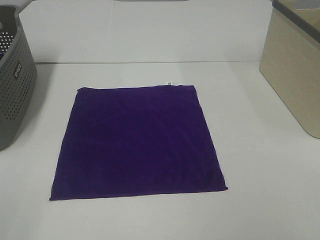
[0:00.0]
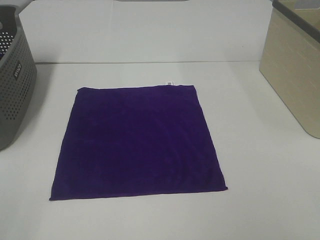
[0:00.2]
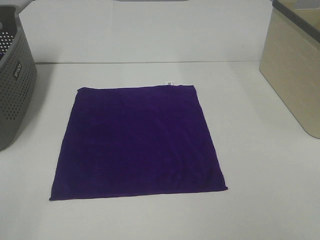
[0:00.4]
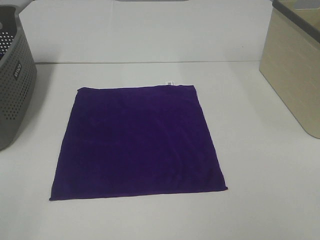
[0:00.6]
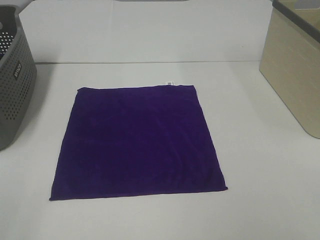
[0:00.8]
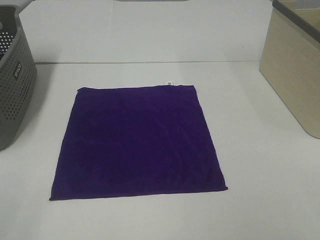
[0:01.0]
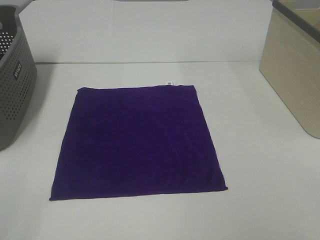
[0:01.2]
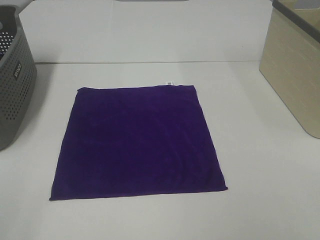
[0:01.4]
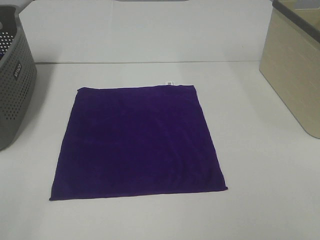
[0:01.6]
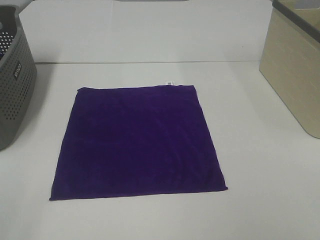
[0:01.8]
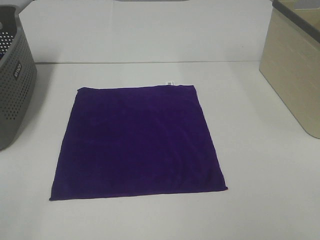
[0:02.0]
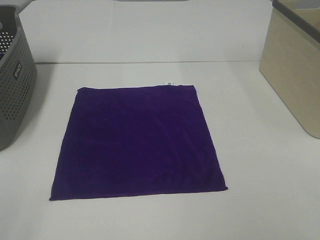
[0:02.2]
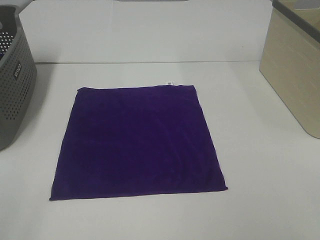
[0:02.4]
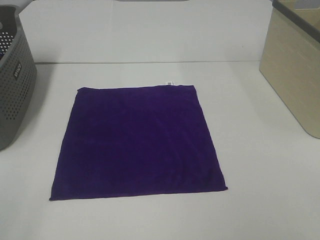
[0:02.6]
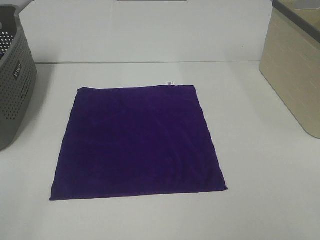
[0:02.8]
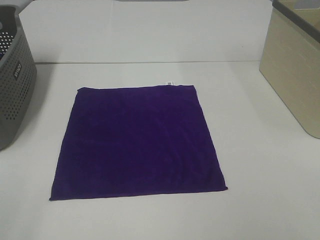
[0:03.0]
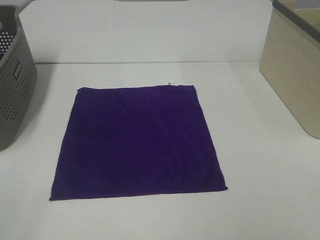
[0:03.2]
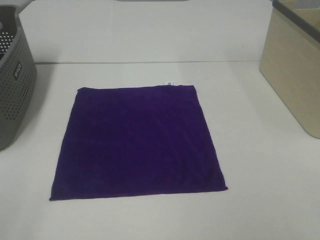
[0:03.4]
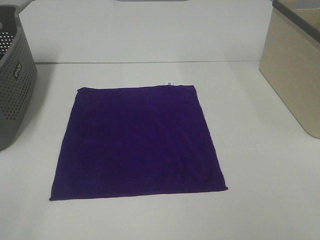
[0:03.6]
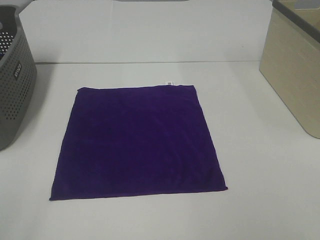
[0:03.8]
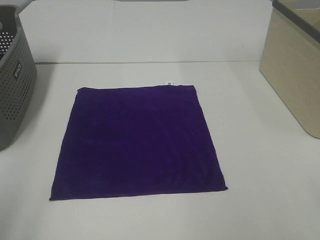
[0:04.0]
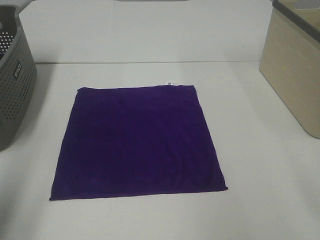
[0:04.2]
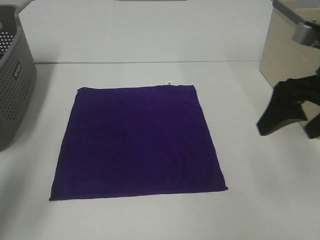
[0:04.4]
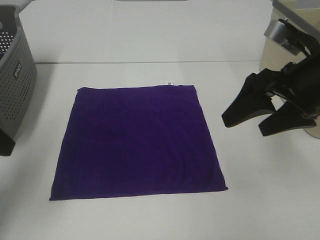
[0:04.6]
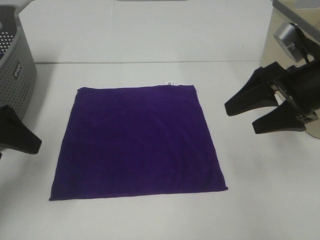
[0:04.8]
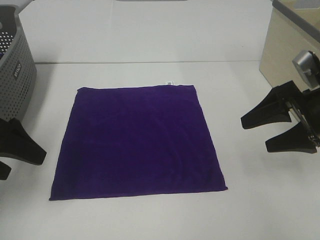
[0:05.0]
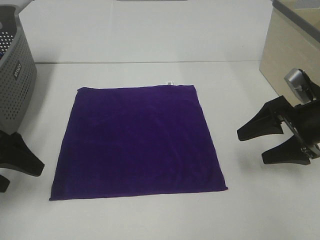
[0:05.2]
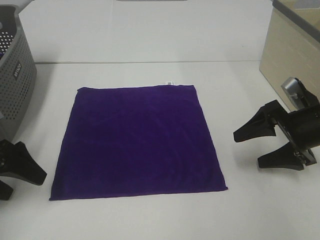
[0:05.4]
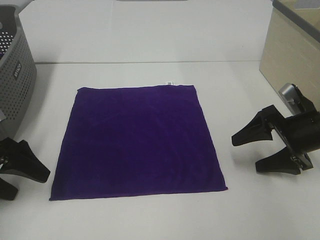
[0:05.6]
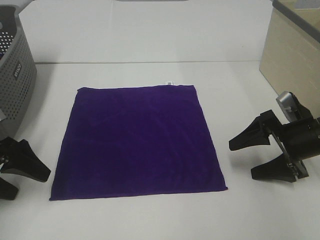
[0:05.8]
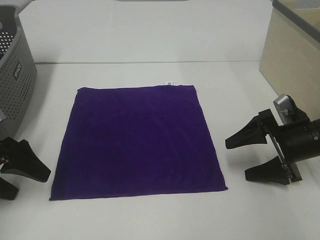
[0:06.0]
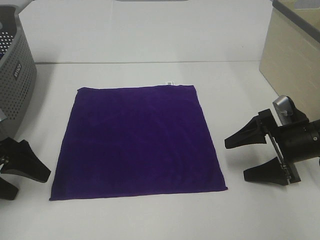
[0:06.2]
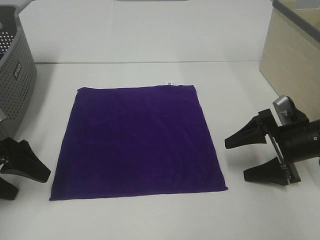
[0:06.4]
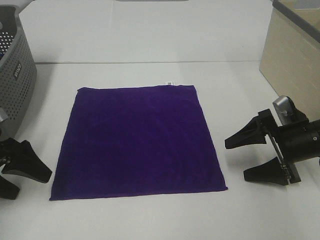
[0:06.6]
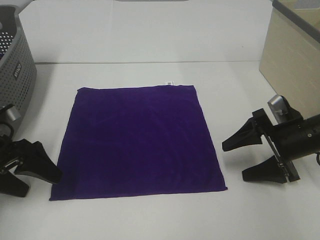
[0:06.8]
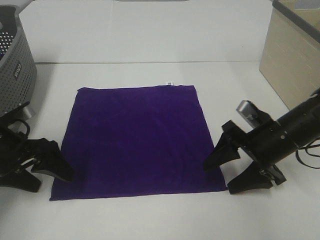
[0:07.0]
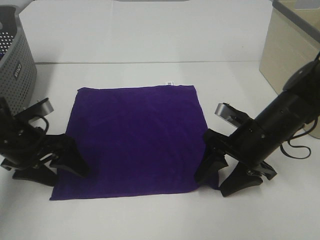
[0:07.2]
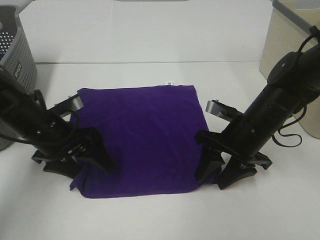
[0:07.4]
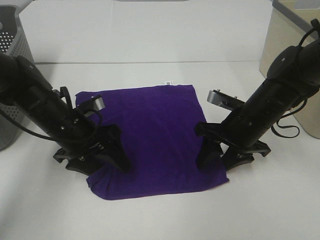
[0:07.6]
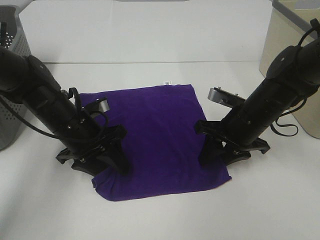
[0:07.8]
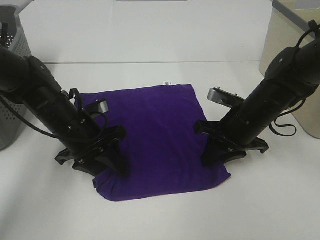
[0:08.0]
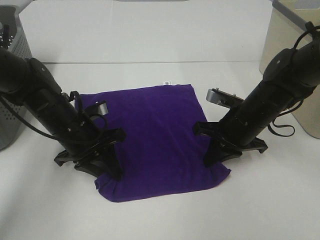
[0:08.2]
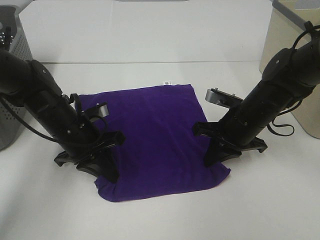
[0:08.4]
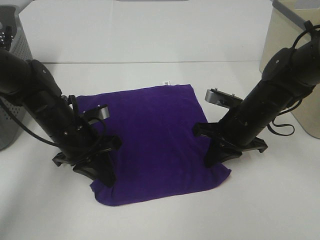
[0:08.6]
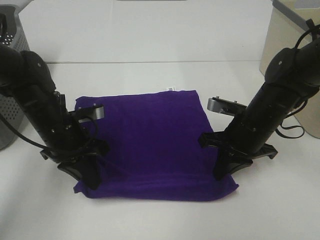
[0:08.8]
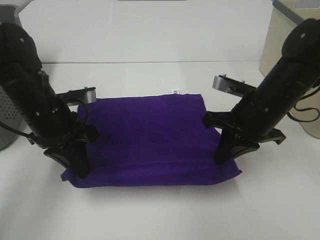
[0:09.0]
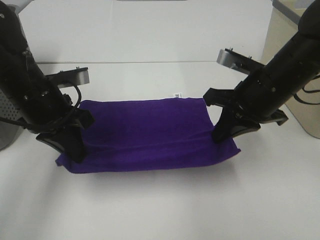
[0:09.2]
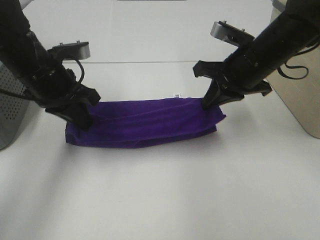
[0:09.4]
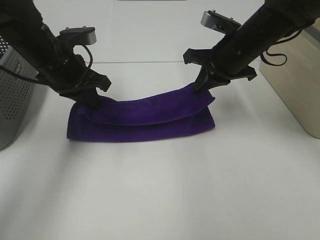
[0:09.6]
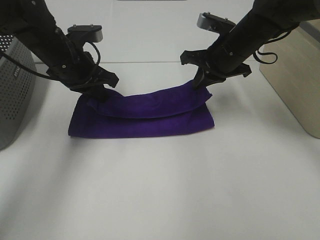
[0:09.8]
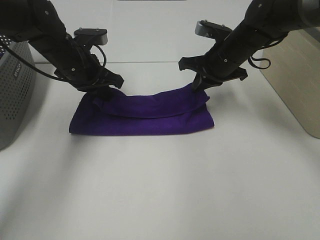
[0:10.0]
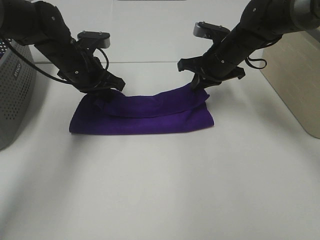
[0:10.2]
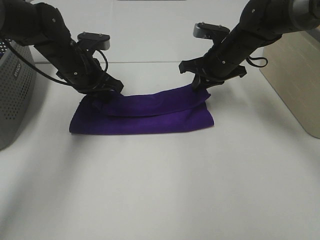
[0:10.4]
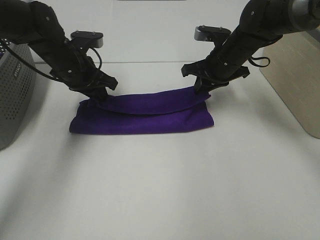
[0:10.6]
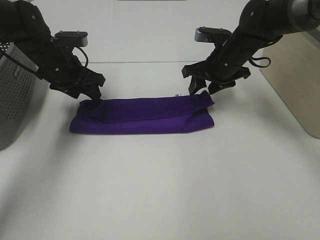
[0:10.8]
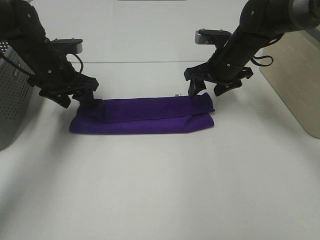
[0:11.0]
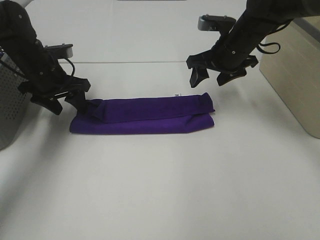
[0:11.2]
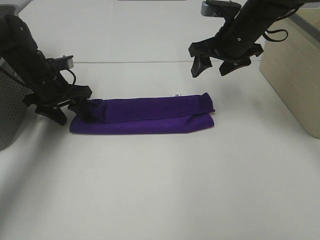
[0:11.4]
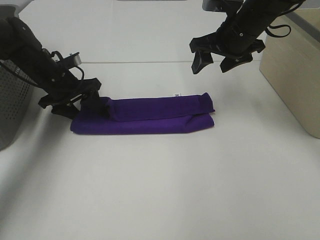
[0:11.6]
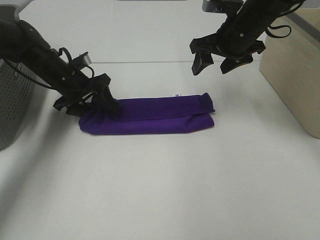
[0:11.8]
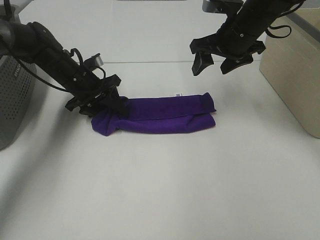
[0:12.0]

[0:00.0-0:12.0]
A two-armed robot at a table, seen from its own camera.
Task of the whole recording: Fold towels.
Step, 0:00.0 to 0:08.4: Left hand: grab the bottom left corner of purple towel.
Step, 0:00.0 to 0:08.4: Right hand: grab the bottom right corner of purple towel.
Step, 0:08.6 to 0:10.6: Left hand: fold the purple towel up.
Step, 0:08.6 to 0:10.6: Right hand: fold the purple towel up.
0:00.0 to 0:03.0: Both grippers stay about where they are.
0:03.0 to 0:04.4: The grippers both shift forward by approximately 20 cm.
0:04.4 to 0:06.0: The right gripper heads downward, covering some 15 cm. The left gripper moves downward and forward, approximately 15 cm.
0:06.0 to 0:07.6: The right gripper moves to the left, approximately 10 cm, and closes up. The left gripper is displaced to the right and forward by about 15 cm.
0:07.6 to 0:09.0: Both grippers move upward, approximately 5 cm. The left gripper closes up, while the right gripper closes.
0:09.0 to 0:10.4: Both grippers move forward, roughly 15 cm.
0:10.4 to 0:12.0: The right gripper moves upward, about 5 cm, and opens up, while the left gripper is displaced downward by approximately 5 cm, and opens up.

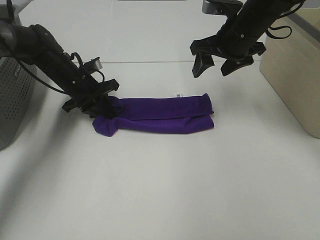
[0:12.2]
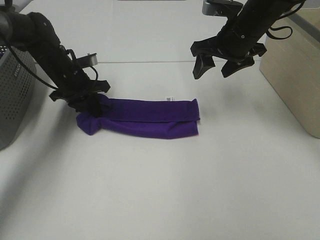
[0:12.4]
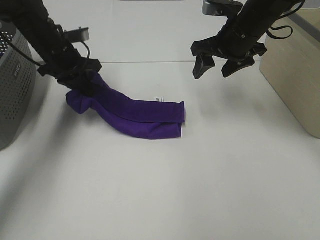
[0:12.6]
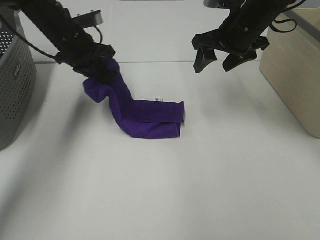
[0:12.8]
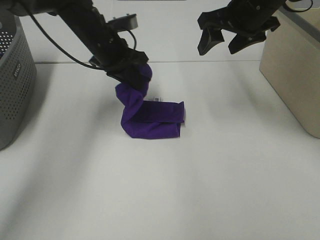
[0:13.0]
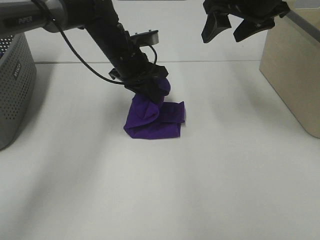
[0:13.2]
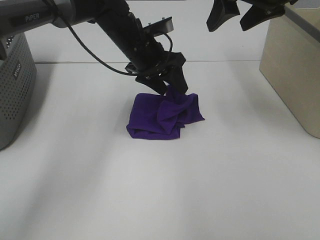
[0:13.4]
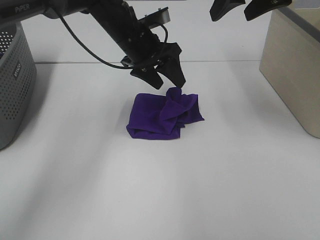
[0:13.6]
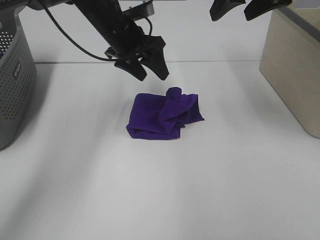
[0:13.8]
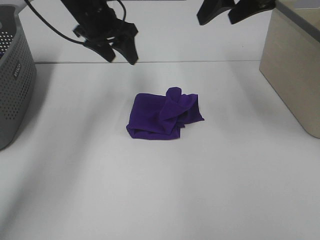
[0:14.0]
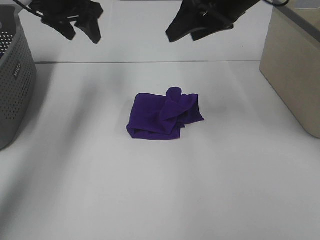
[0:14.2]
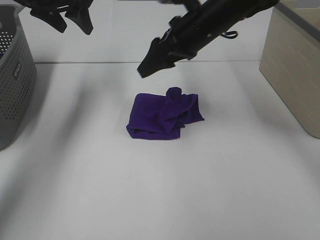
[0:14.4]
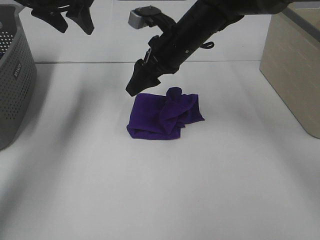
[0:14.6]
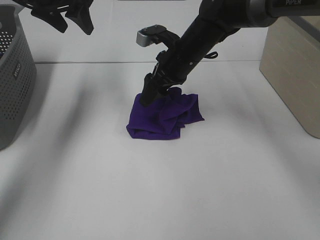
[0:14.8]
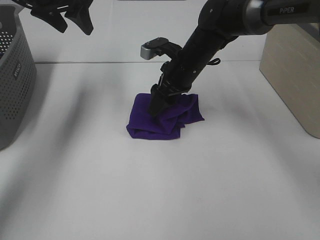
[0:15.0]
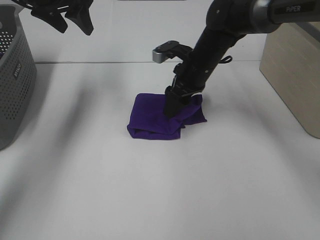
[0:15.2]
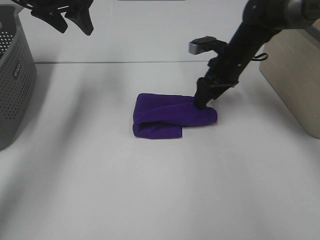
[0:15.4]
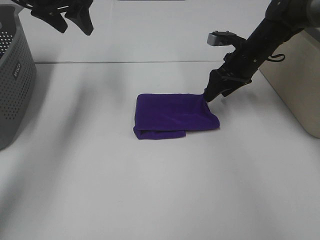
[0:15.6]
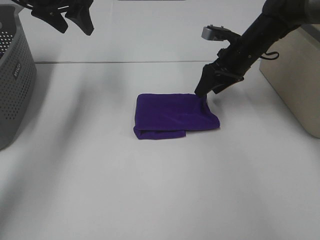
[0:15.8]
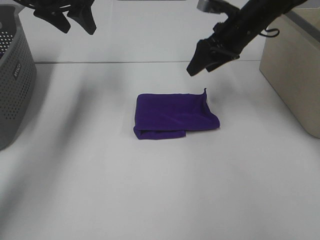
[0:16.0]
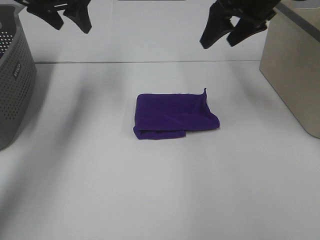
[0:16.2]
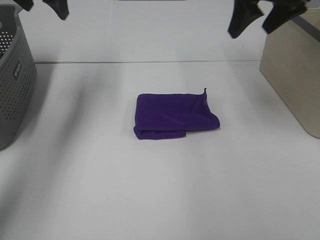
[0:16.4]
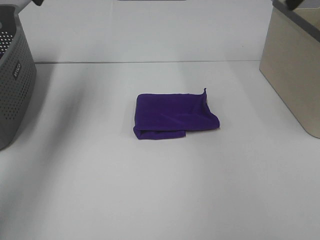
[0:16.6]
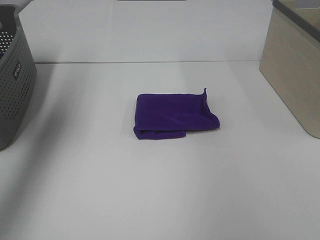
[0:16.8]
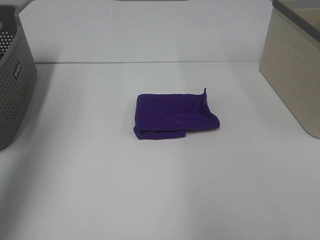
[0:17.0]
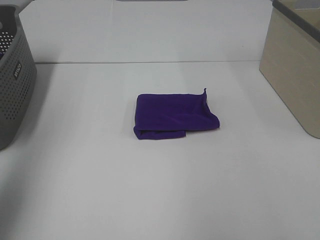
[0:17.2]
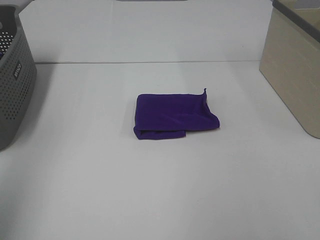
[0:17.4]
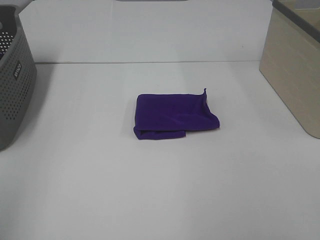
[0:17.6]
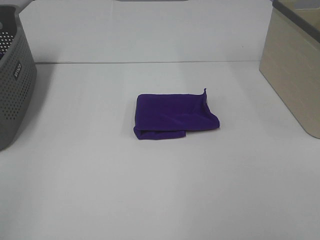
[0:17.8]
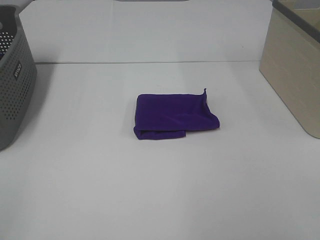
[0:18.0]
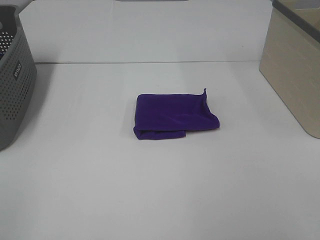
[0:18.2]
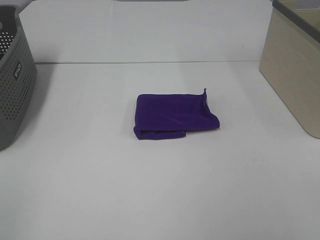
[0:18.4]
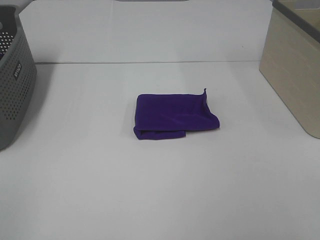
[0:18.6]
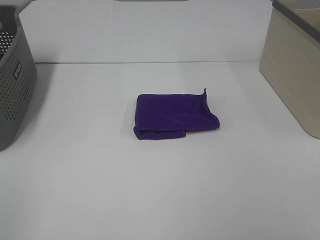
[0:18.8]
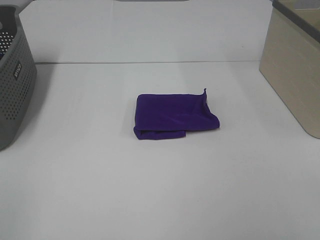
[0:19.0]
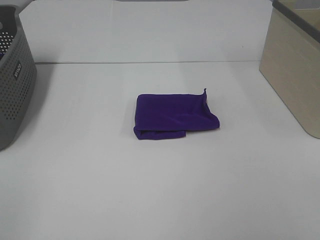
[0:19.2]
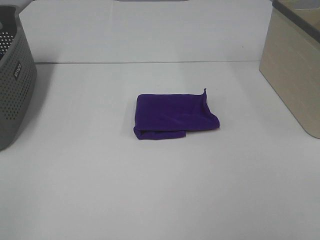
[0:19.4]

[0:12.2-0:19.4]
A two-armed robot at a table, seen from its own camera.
Task of the whole recording: Fold towels.
Step, 0:13.4 to 0:15.8: Right hand: adjust the purple towel.
0:12.2 to 0:13.6: The left gripper travels to the right and upward by about 15 cm, and opens its fingers. The right gripper heads upward and backward, covering about 15 cm.
0:13.6 to 0:15.0: The left gripper shifts approximately 20 cm to the left and upward, while the right gripper travels downward and to the left by about 25 cm.
0:15.0 to 0:16.6: The left gripper travels upward and backward by some 10 cm. Meanwhile the right gripper heads upward and to the right, covering some 30 cm.
0:16.6 to 0:18.0: The left gripper goes some 40 cm backward.

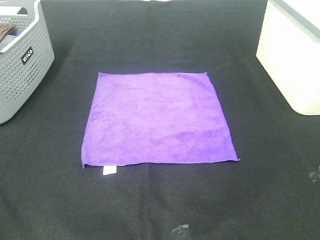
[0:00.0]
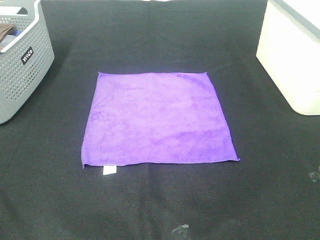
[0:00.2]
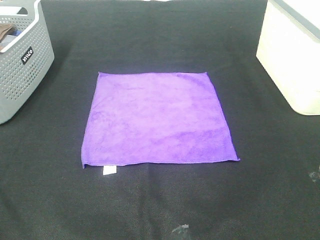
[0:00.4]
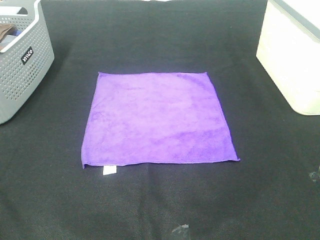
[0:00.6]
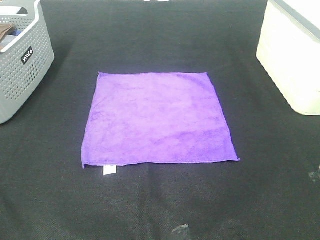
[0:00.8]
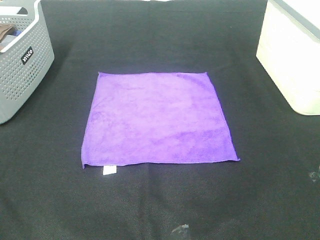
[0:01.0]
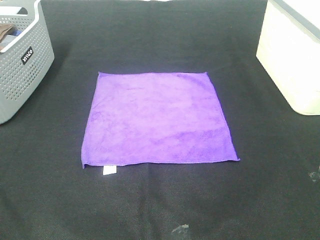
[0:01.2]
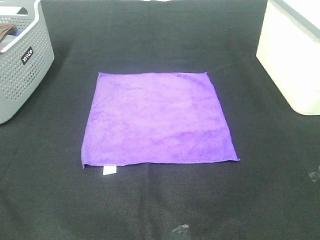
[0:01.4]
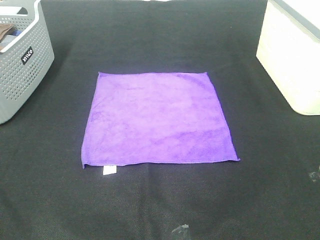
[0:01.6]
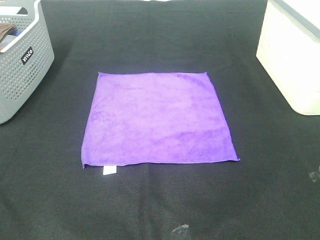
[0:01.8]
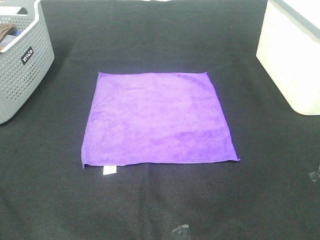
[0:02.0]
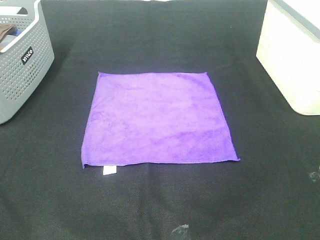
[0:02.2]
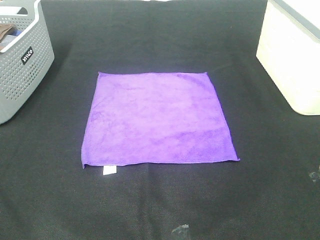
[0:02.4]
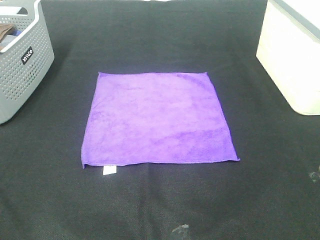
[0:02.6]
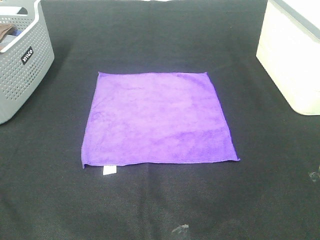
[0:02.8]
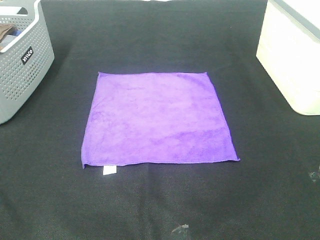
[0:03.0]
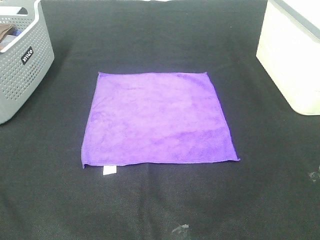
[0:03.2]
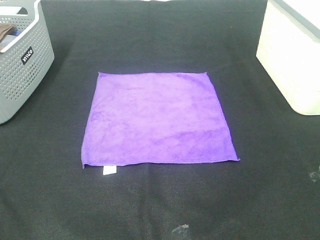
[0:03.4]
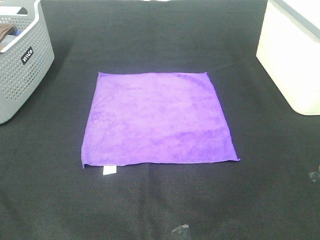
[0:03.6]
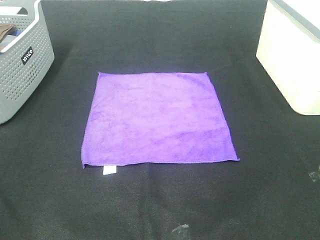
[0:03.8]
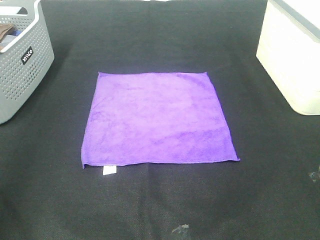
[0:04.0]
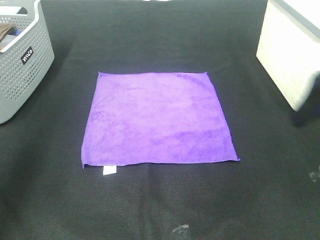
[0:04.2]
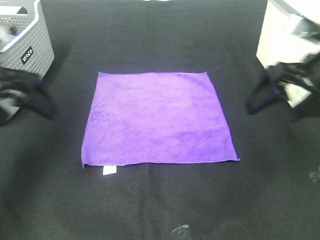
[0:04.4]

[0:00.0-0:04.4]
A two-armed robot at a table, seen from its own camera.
Task of the whole recording: Fold towels.
0:01.4 to 0:03.0: The two grippers keep their place.
0:03.0 to 0:04.4: The two grippers go roughly 30 cm forward.
